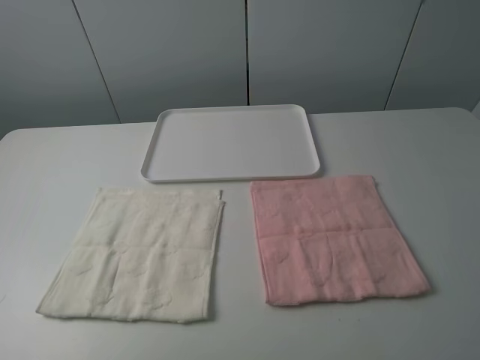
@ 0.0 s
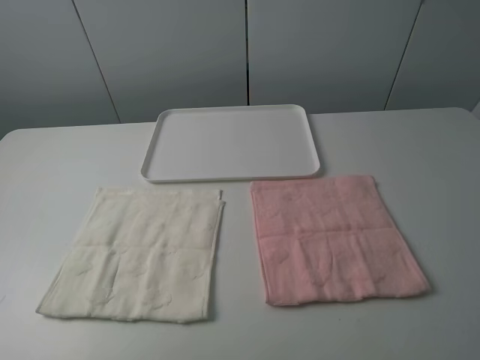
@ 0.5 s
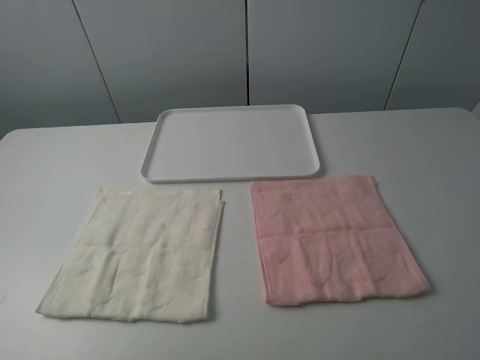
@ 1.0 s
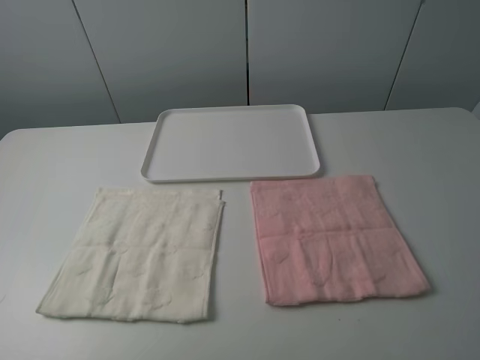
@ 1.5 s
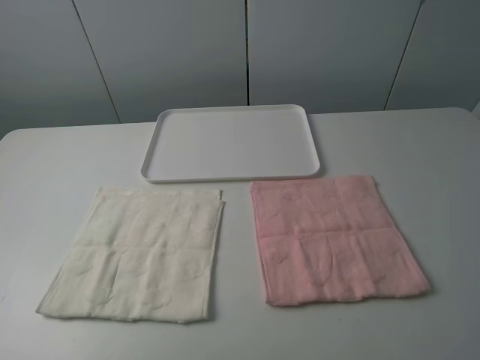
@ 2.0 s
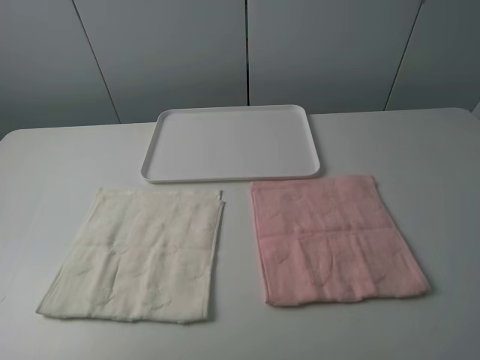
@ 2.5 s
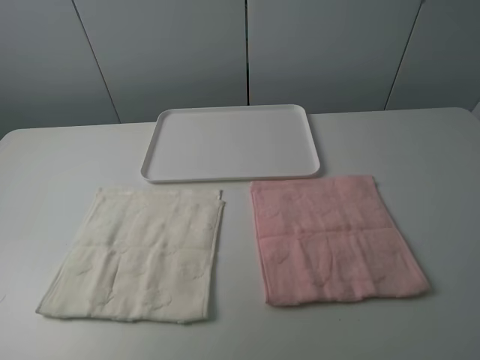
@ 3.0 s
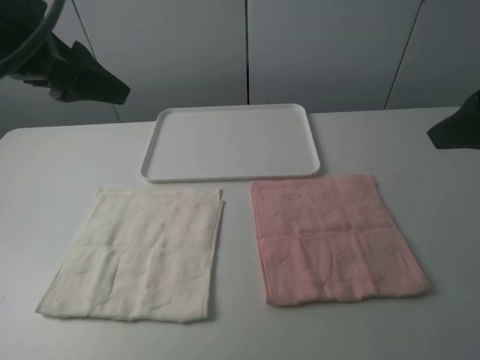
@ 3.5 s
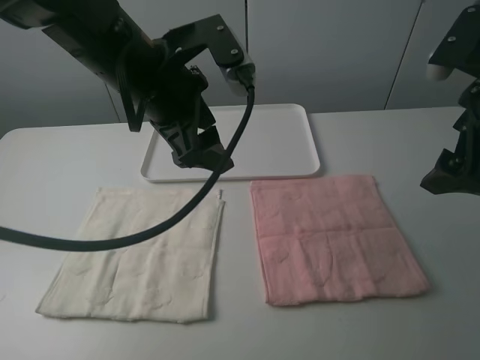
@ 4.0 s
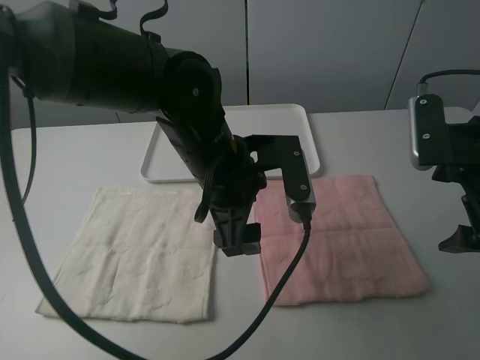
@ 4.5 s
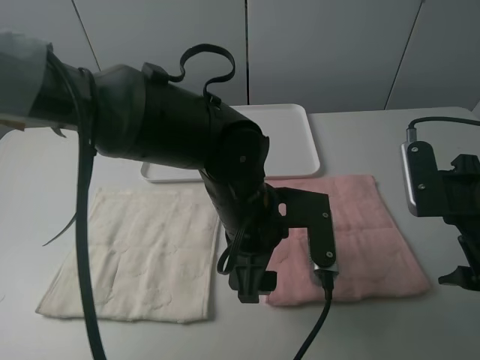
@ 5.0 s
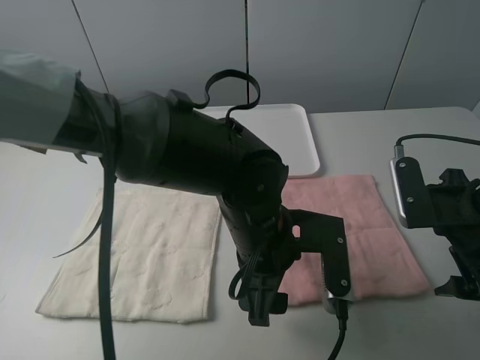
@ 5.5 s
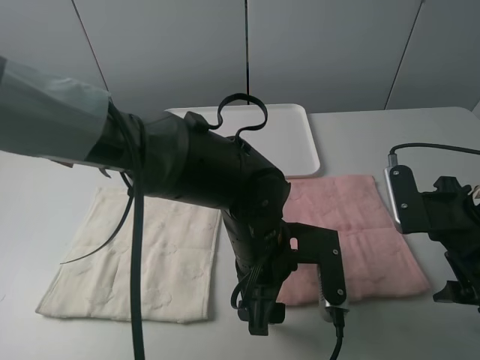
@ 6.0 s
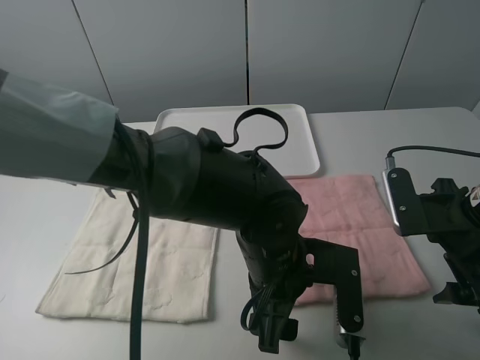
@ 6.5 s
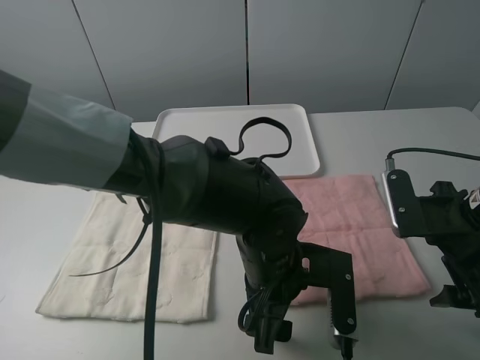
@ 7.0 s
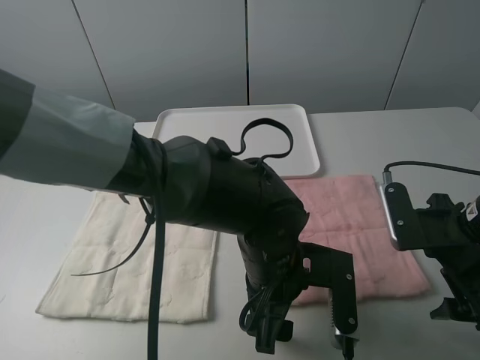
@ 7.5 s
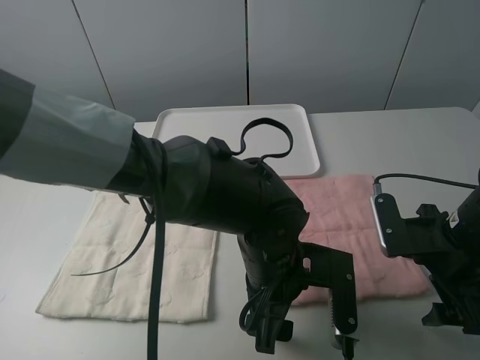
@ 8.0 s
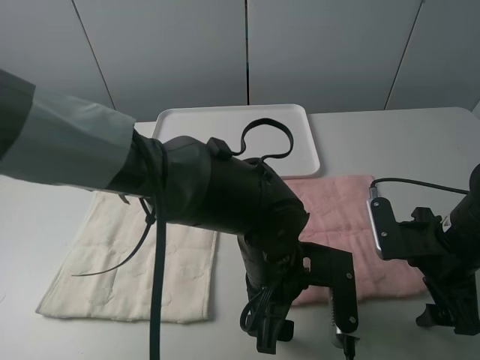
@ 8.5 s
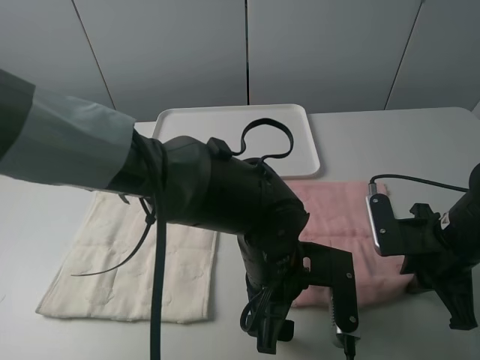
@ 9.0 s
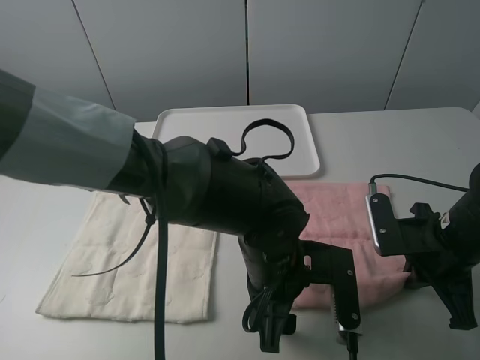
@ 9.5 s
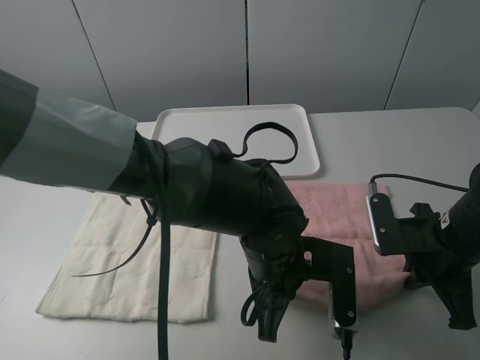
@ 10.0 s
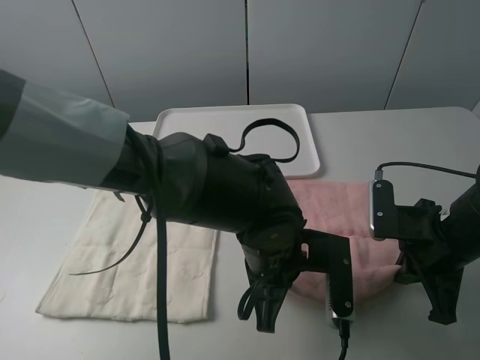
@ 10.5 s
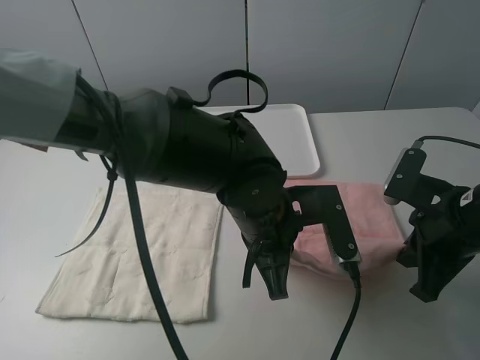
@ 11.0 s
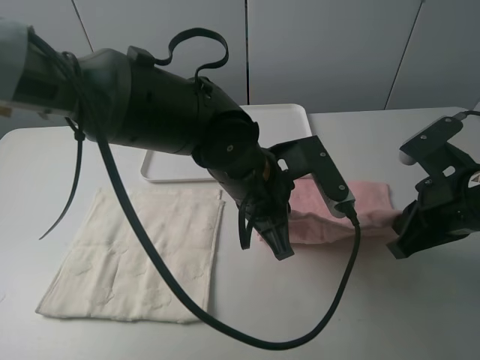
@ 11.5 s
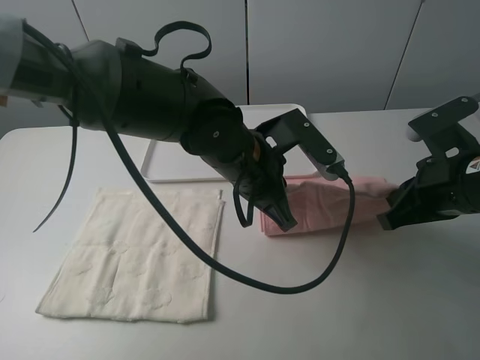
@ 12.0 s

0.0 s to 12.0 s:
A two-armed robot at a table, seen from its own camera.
Task of the whole recording: fold one of the towels by two grippers and place it on the tray,then fold another towel by two grippers and place it on the folded towel.
Step, 0.0 to 10.0 s: Grasp the pink towel with the left gripper.
2.0 to 4.0 s: The left gripper moves forward and to the right, approximately 35 cm. Meanwhile the right gripper is displaced forward by about 20 cm.
4.0 to 6.0 s: The right gripper goes about 10 cm downward, while the left gripper moves downward, to the right and backward, roughly 20 cm.
8.0 to 10.0 s: The right gripper closes. The left gripper closes its fingers.
10.0 to 12.0 s: The left gripper heads forward and upward, covering some 10 cm; the right gripper heads upward, covering about 5 cm.

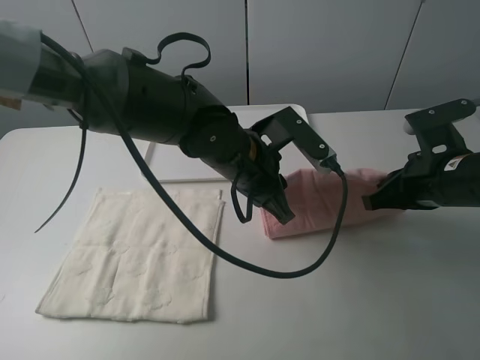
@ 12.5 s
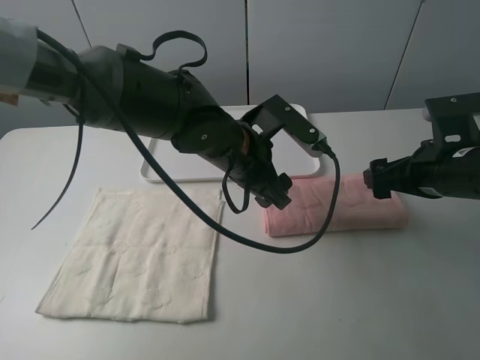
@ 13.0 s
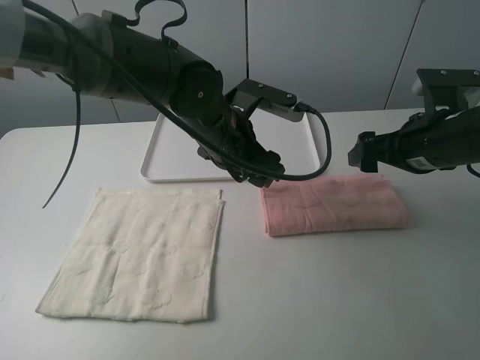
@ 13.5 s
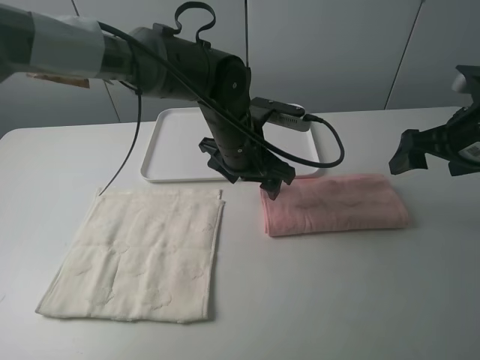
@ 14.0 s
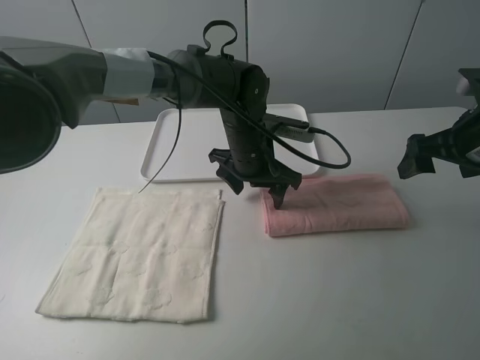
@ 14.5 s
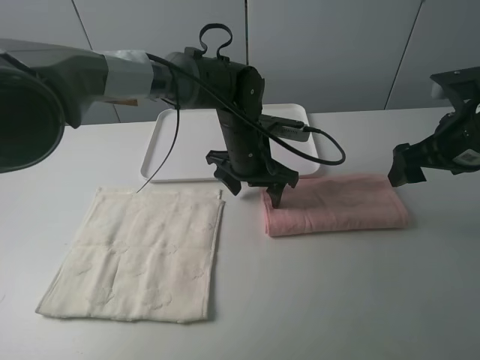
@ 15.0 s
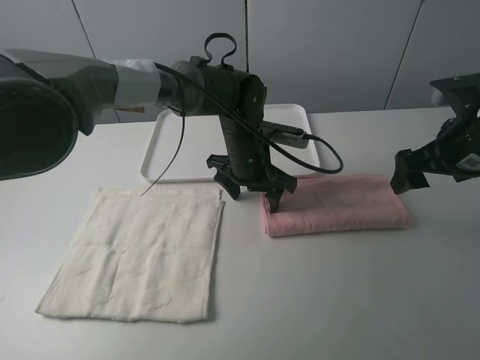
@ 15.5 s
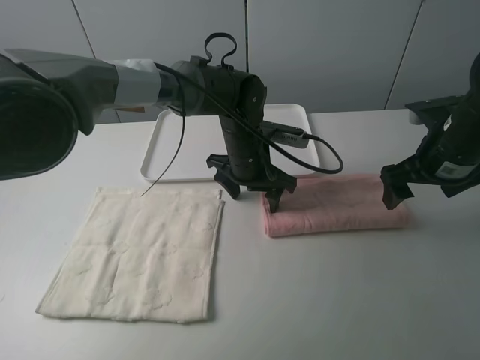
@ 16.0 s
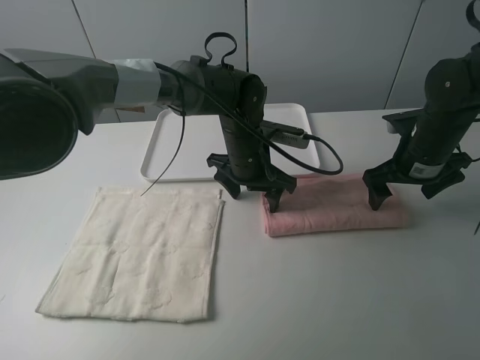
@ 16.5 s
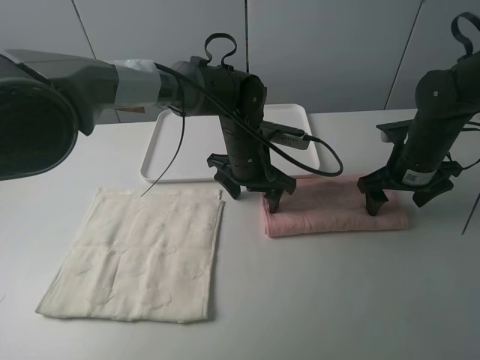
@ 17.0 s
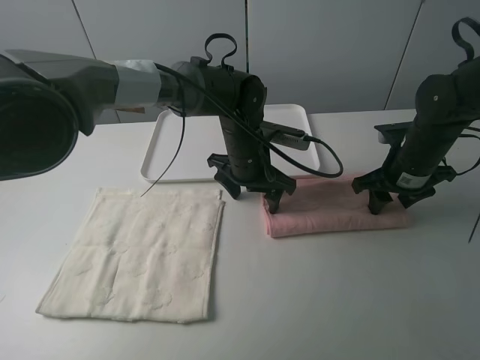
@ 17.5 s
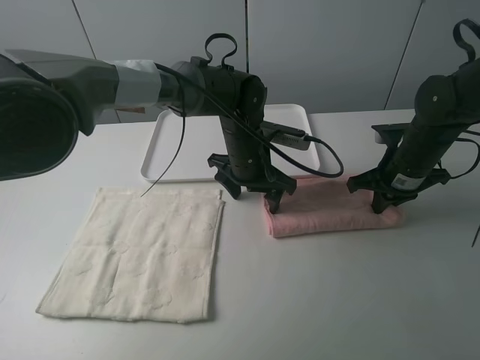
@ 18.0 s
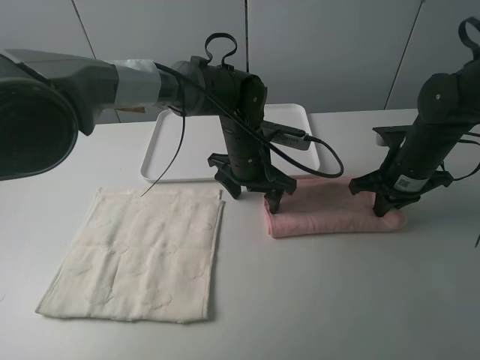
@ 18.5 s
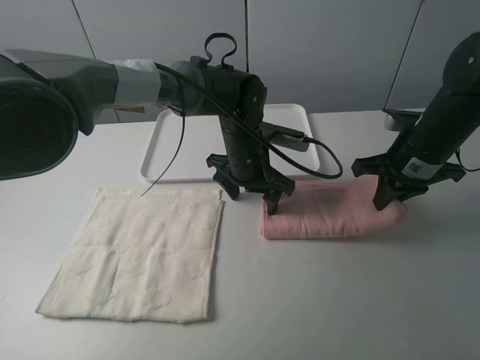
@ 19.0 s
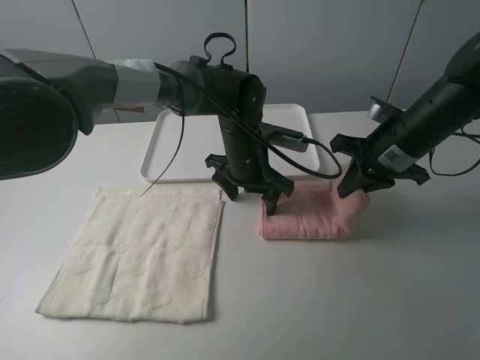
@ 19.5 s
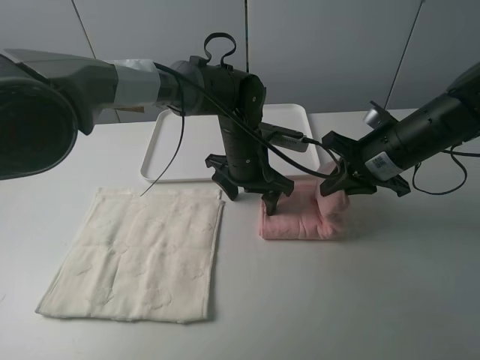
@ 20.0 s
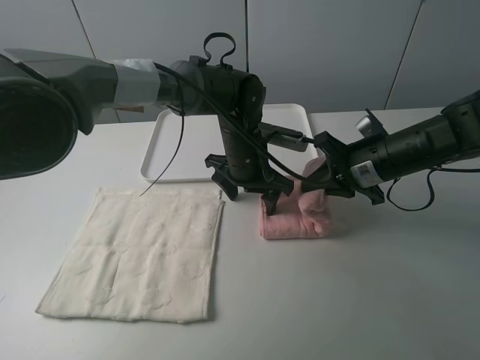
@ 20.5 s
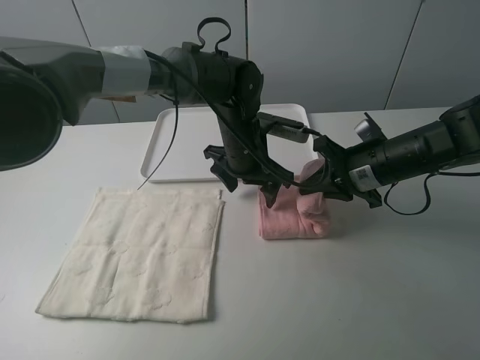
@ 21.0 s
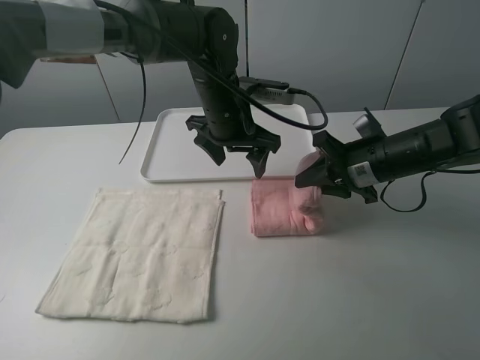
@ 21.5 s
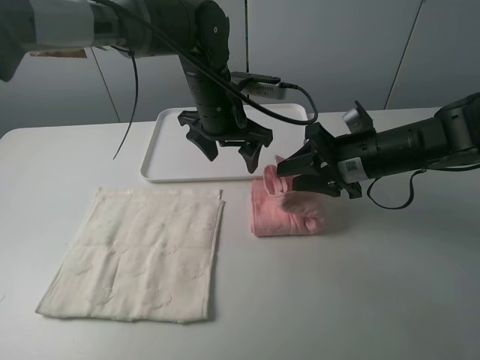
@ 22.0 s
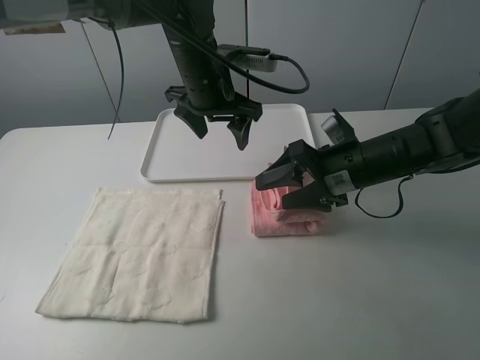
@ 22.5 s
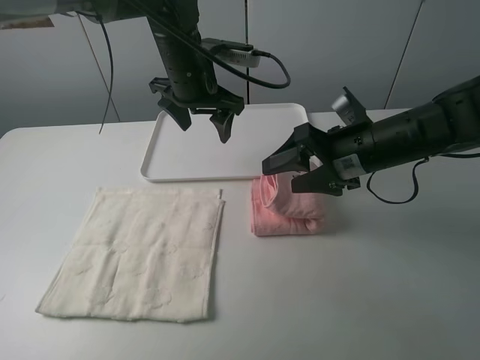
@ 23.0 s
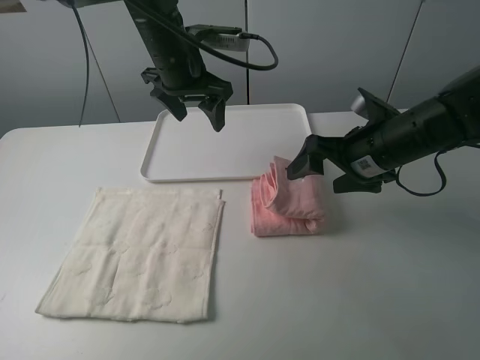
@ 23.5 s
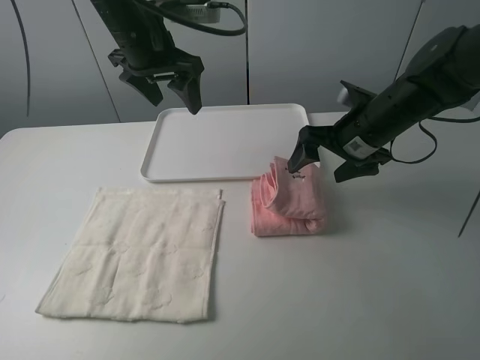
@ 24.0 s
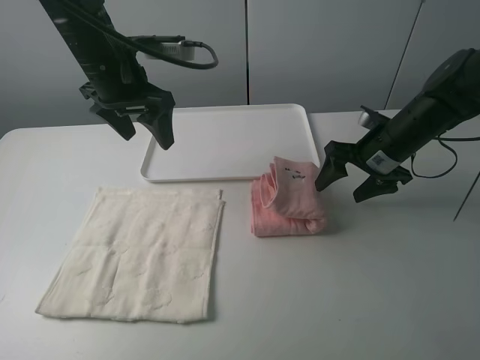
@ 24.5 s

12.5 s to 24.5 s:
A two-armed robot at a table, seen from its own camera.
Task of the whole recording: fold one of the towels by two grippers and place it on the tray,then fold another towel by two grippers and place it on the folded towel.
Step, 13.5 to 15.5 s: Press the pink towel with the left gripper.
Step, 16.0 to 18.0 s: Grasp the pink towel with the right gripper.
Step, 18.5 to 22.5 s: Fold the pink towel from right to left with right gripper.
12.5 to 14.5 s: The left gripper heads forward, covering about 10 cm, and opens its fingers, while the right gripper shifts some 5 cm to the right, and opens.
14.5 to 16.5 s: The right gripper is displaced downward and forward by roughly 10 cm.
16.5 to 18.5 s: The right gripper closes.
18.5 to 20.5 s: The right gripper travels to the left by roughly 5 cm.
20.5 to 22.5 s: The left gripper travels upward and to the left by roughly 15 cm; the right gripper opens up.
22.5 to 24.5 s: The left gripper travels to the left by some 10 cm. The right gripper shifts roughly 10 cm to the right and forward.

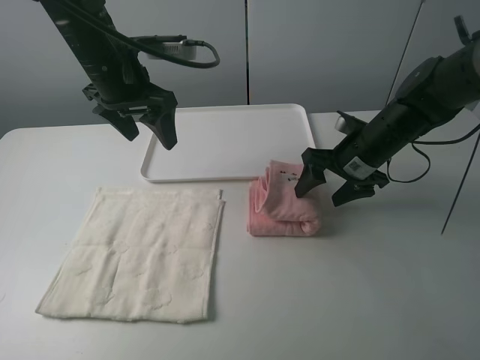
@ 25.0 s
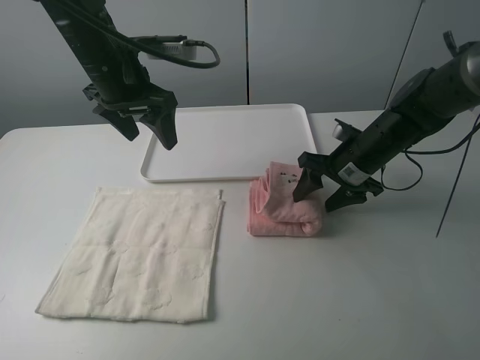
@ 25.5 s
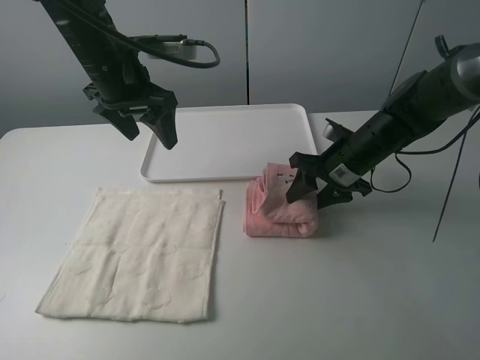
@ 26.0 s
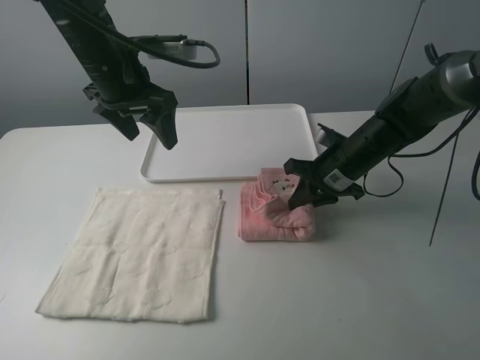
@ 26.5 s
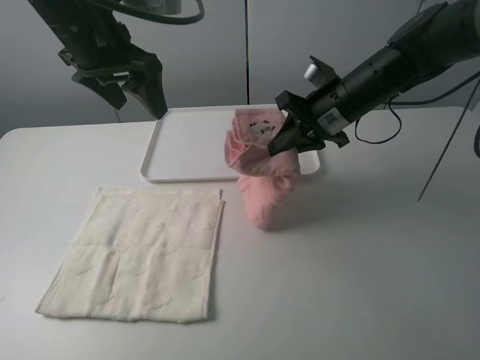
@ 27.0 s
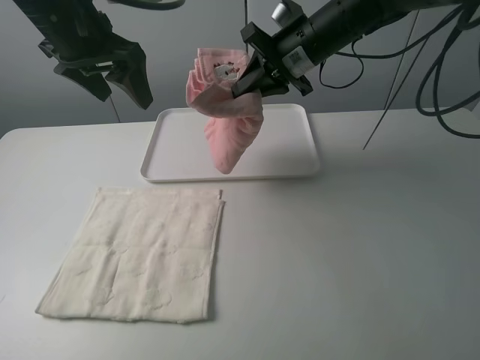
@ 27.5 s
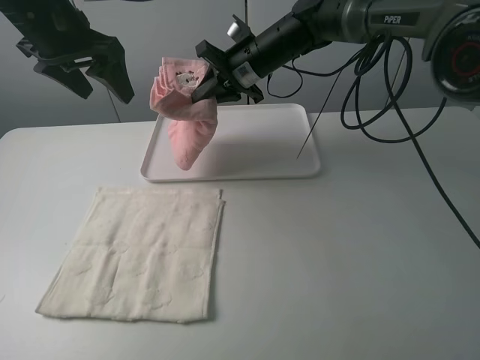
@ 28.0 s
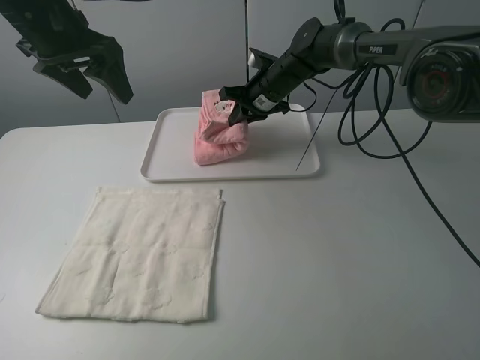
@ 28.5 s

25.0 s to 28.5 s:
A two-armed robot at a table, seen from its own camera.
Task of the whole recording: fold one of the towels by two grippers and place it on the tray,then fold another towel by two grippers and place it on the folded towel.
25.0 to 27.0 s: The two grippers go some 5 cm upward. The right gripper closes.
27.0 to 28.5 s: The left gripper shifts by some 5 cm; the right gripper goes roughly 15 cm forward, to the left and downward.
